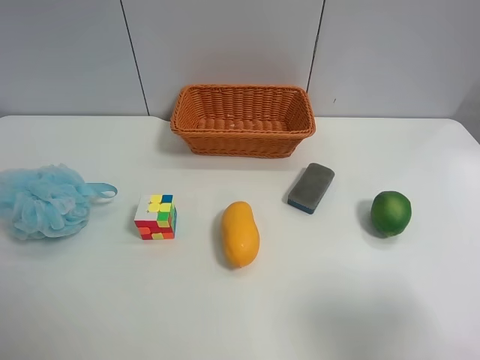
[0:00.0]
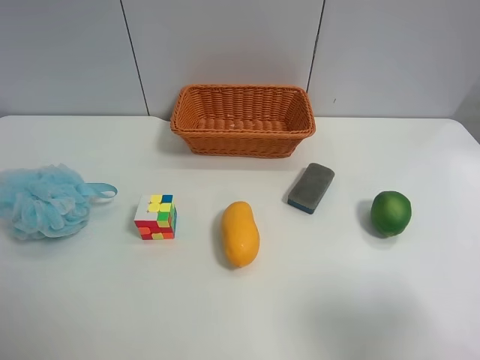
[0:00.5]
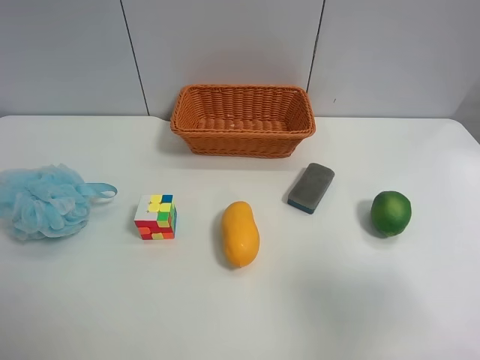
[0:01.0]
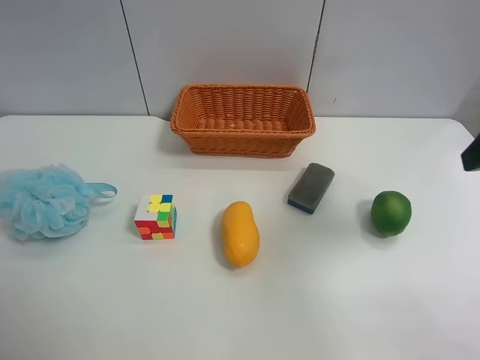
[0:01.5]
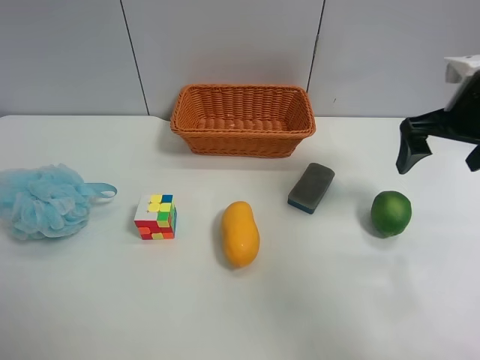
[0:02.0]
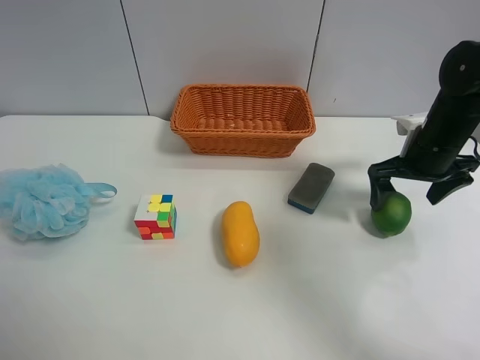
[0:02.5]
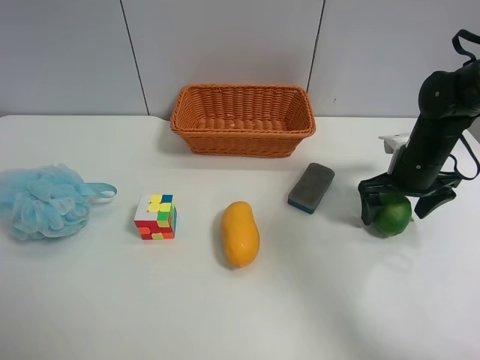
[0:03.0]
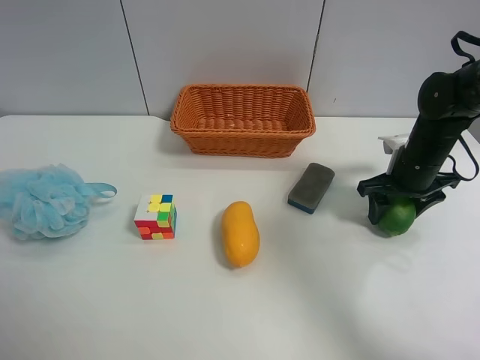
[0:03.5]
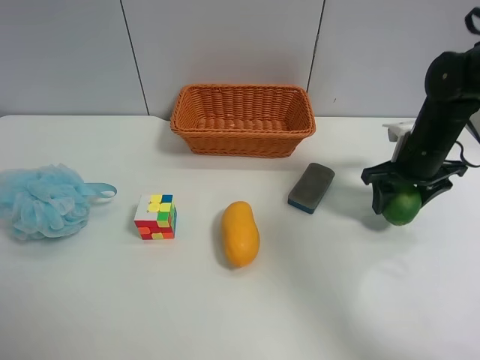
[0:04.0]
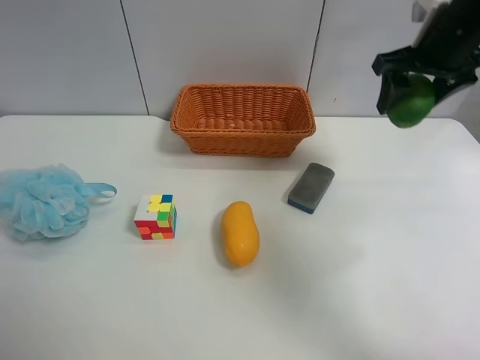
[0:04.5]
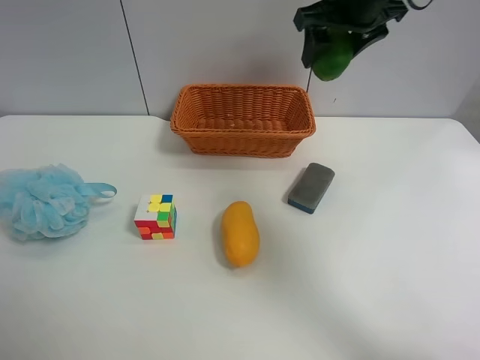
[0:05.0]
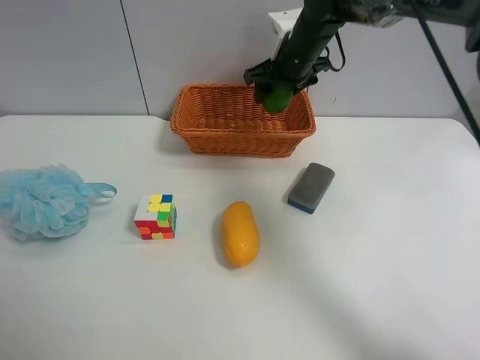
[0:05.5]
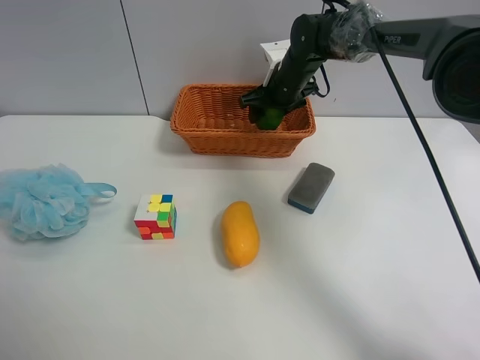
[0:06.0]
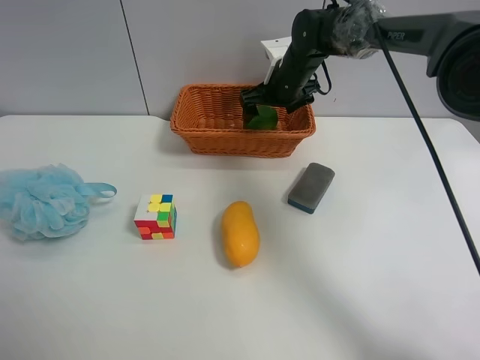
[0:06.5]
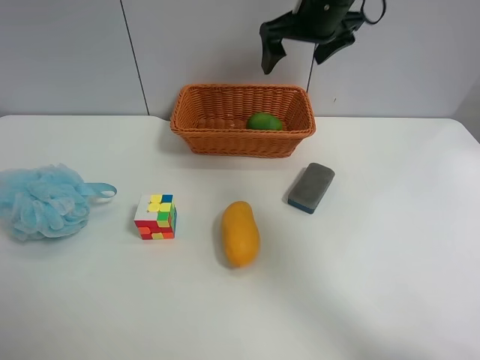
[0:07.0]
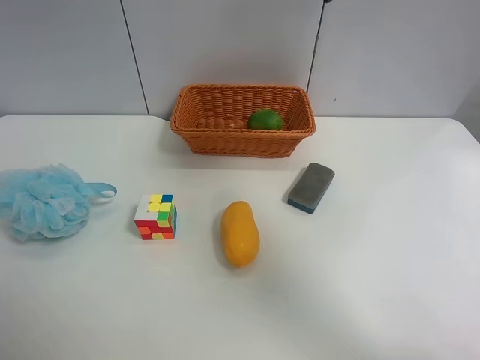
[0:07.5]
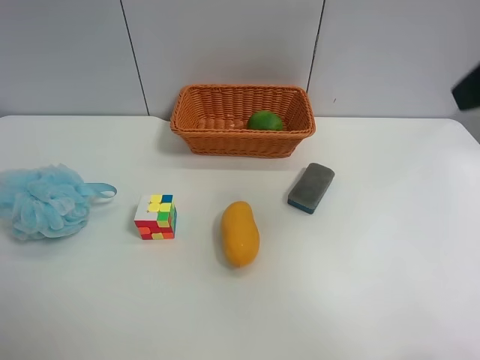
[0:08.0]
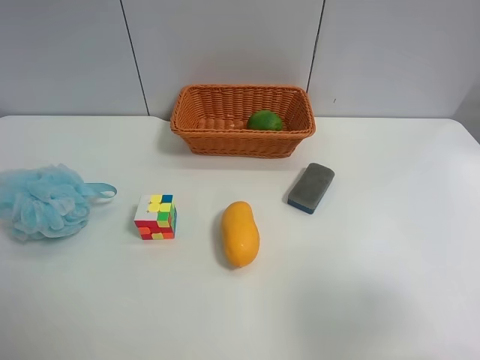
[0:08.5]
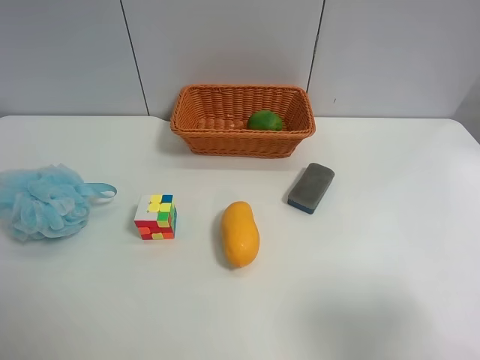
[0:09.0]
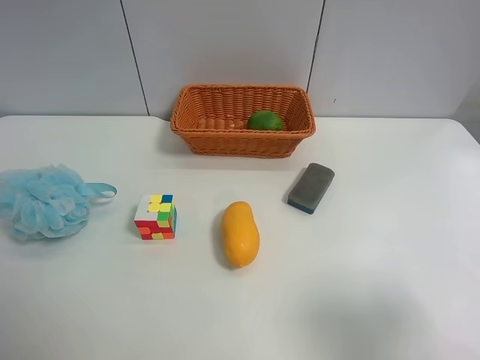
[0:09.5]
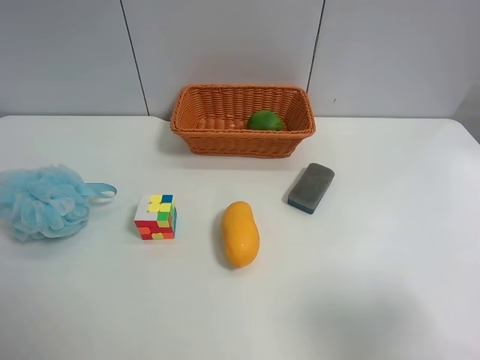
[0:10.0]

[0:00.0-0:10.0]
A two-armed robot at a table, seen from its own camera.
Task of the whole recording: Randomly grab green lemon or mangoes from the table and put them in a basket.
Step, 0:00.0 to 0:03.5: Grasp the Lemon with the right gripper.
Step, 0:04.0 to 0:06.5: Place the Lemon into the basket with the right gripper.
0:00.0 to 0:02.0: The right gripper goes approximately 30 cm forward.
0:02.0 to 0:04.0: The right gripper is displaced downward by approximately 10 cm, and closes.
0:04.0 to 0:06.0: The right gripper heads to the left and forward, covering roughly 25 cm.
0:06.0 to 0:08.0: The right gripper shifts some 40 cm backward and upward, and opens.
0:08.0 to 0:10.0: The right gripper travels backward and downward by roughly 20 cm.
